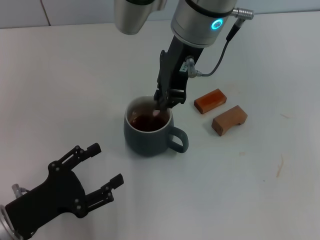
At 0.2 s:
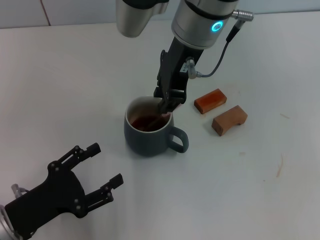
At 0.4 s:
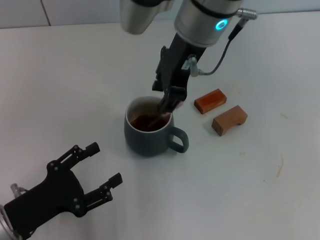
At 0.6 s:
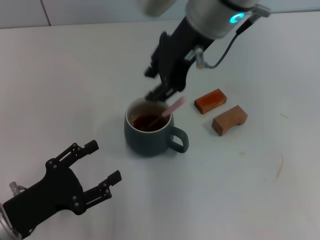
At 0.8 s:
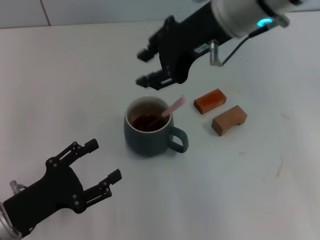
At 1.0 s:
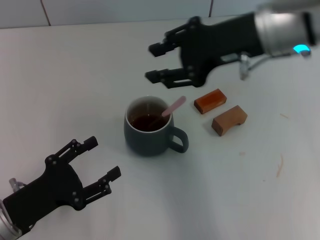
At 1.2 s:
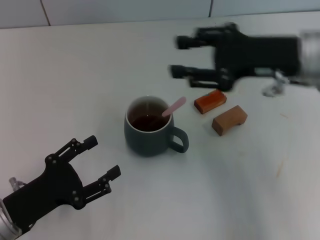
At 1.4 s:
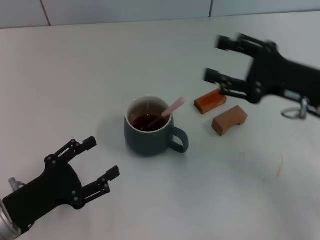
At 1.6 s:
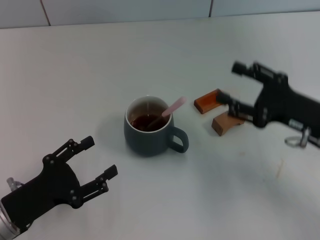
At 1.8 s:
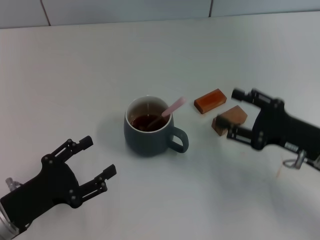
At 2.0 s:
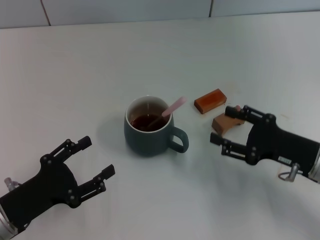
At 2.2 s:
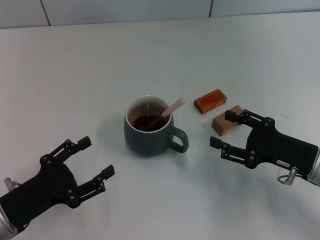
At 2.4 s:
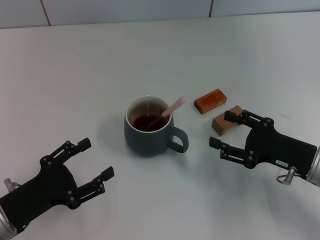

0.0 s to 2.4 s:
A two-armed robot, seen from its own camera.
Task of the whole recording: Move the grey cup to the center, lift the pink spoon, stir it three times in the cup, and put the spoon into the cup.
0.0 to 1.2 s: The right gripper is displaced to the right by approximately 20 cm, and opens up.
1.2 to 2.4 s: The right gripper goes some 15 cm downward and backward.

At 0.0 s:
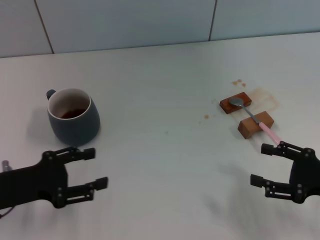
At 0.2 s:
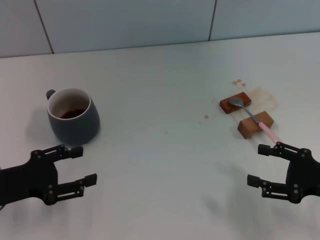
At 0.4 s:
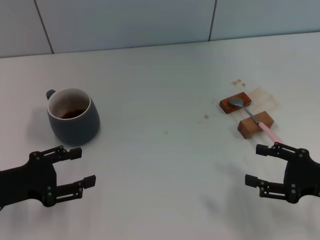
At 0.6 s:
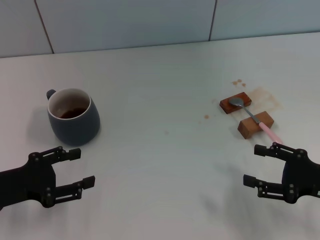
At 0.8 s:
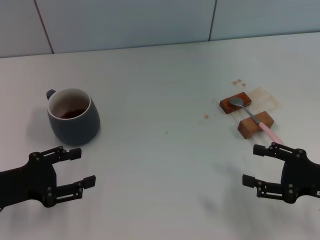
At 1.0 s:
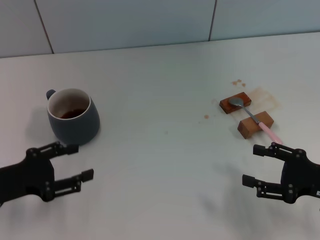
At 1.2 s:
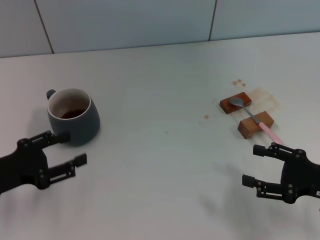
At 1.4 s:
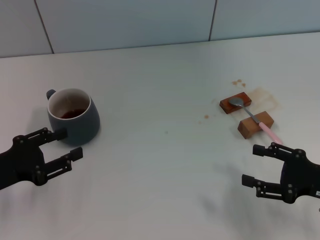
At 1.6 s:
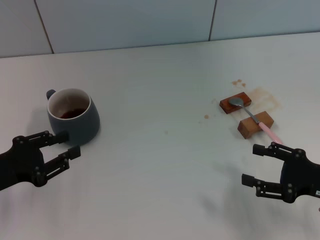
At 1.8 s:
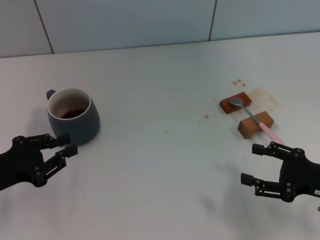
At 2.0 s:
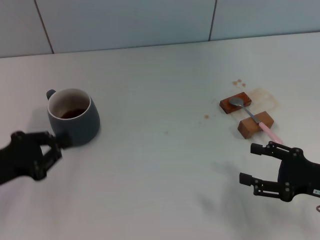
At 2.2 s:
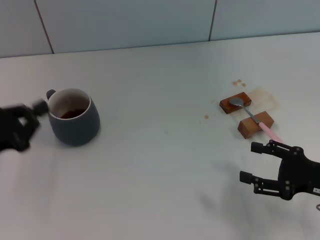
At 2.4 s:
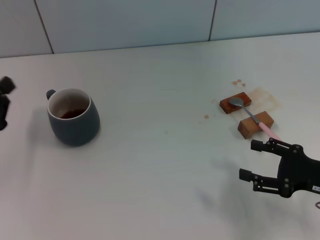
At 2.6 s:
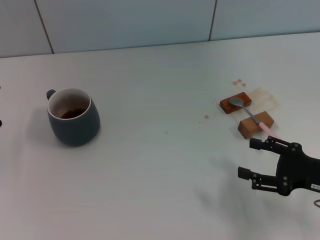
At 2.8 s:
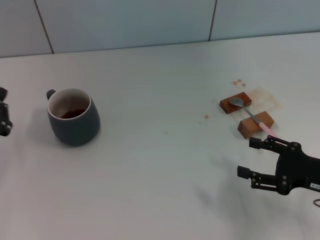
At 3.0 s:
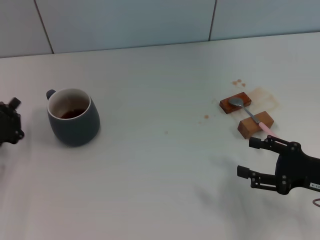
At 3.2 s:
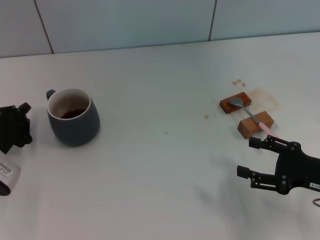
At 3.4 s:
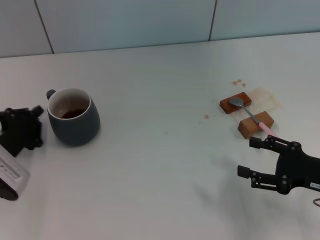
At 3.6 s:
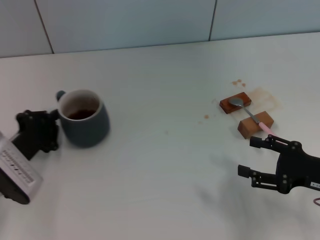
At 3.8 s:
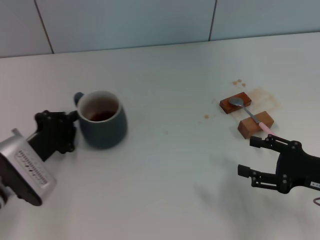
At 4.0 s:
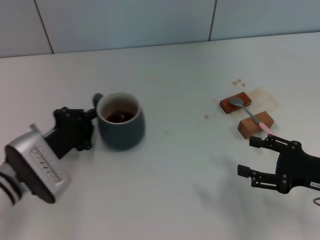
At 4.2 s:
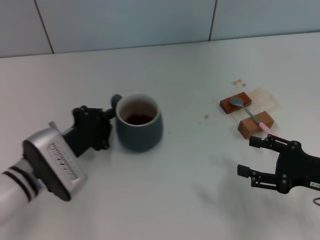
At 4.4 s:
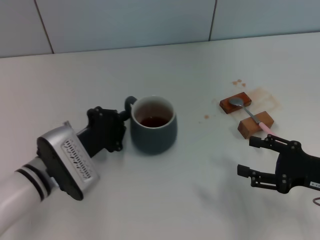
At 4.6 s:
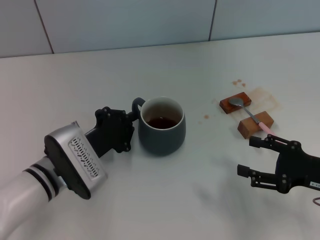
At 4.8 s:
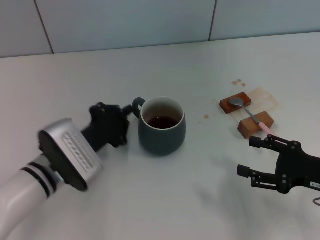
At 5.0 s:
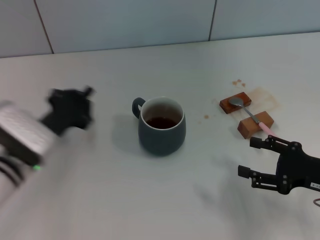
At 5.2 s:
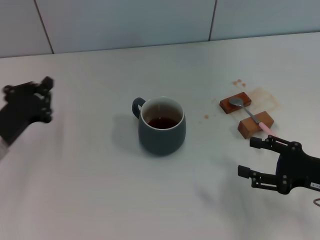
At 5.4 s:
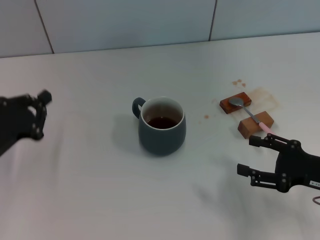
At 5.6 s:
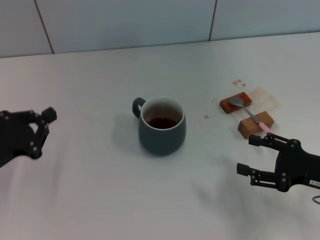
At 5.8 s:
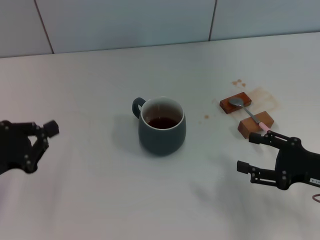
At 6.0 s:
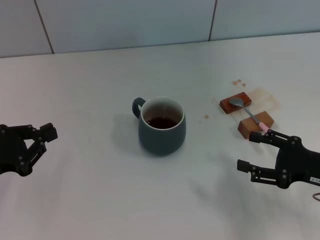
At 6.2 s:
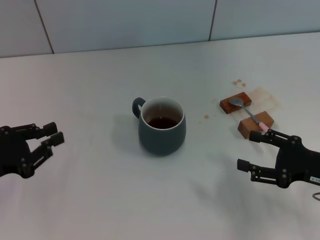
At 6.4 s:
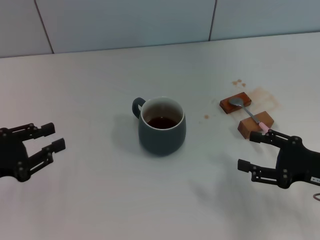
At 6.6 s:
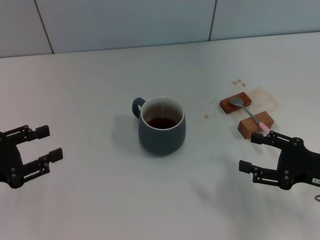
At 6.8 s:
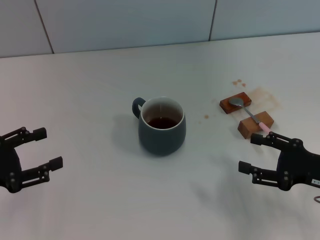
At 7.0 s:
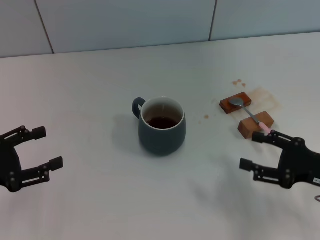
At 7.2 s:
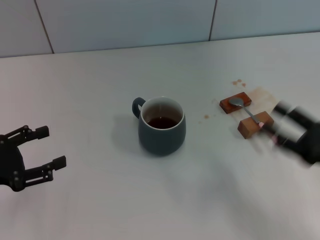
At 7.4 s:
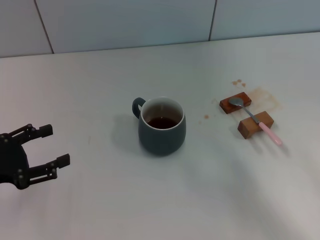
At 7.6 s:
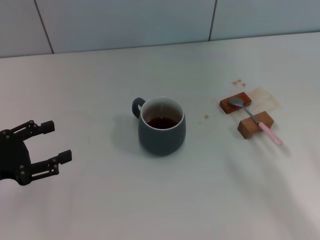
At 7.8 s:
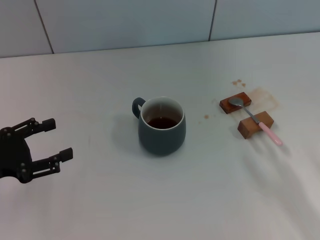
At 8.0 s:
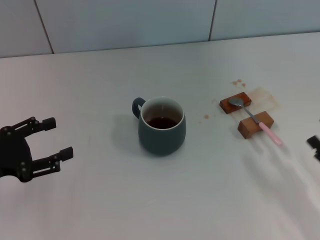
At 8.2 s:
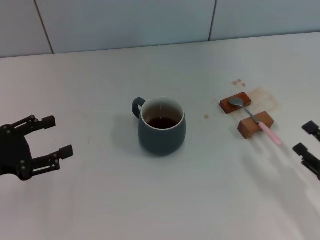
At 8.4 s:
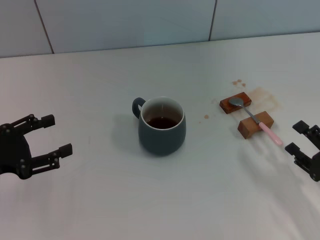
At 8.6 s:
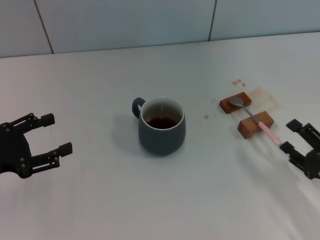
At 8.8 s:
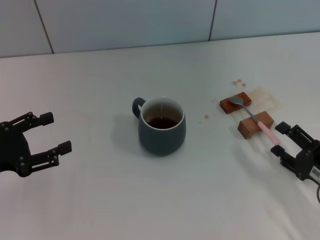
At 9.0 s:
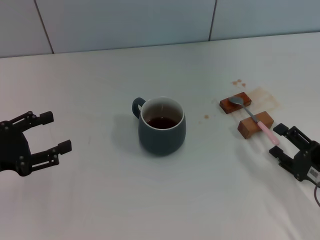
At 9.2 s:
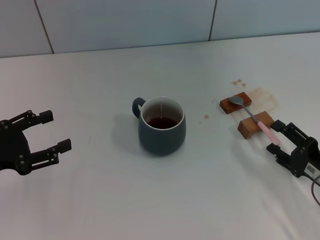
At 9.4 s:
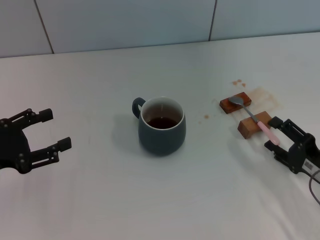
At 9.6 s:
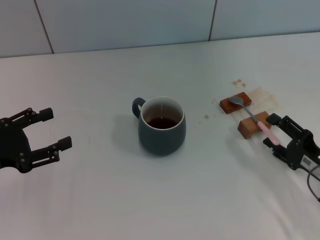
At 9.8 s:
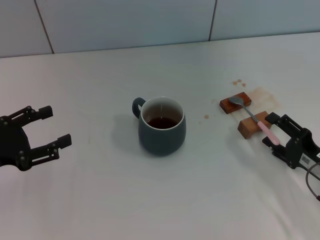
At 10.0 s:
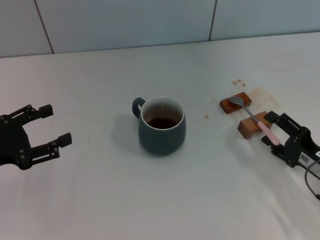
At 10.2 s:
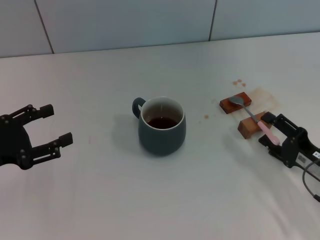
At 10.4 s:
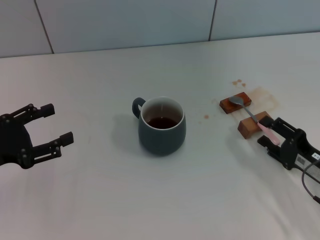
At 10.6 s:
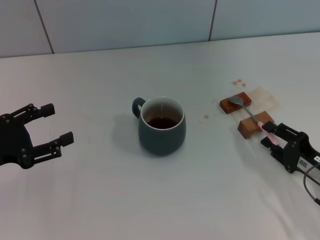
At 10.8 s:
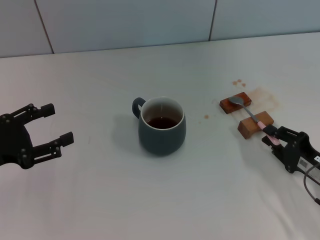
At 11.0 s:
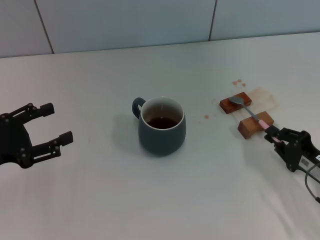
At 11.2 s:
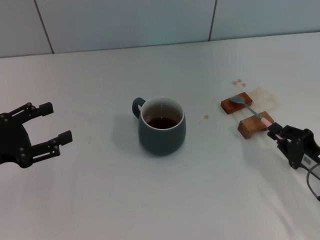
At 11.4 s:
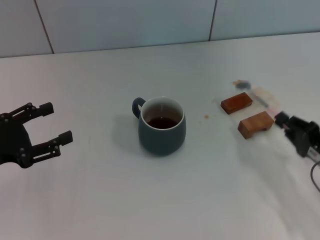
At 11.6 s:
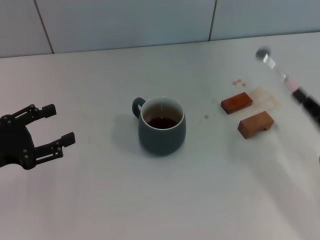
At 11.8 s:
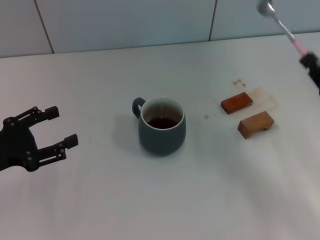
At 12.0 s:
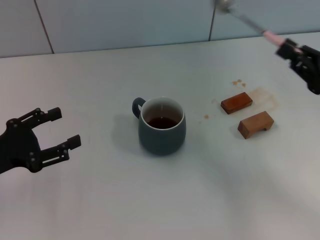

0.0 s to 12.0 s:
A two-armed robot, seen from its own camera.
Task of the whole recording: Move the grey cup to the center, lift the pink spoon, stir it three times in the cup, and put the spoon into the cup.
Step, 0.0 to 4.8 s: Move the cup with coffee to the center of view with the left gripper.
Step, 5.0 to 11.6 s: Pick up the spoon with the right gripper.
0.0 to 1.6 s: The grippers make only small movements.
1.6 to 3.0 s: The left gripper changes place by some 5 cm, and closes up.
3.0 to 4.4 s: The left gripper is displaced to the right by some 15 cm.
4.4 to 6.0 s: The left gripper travels to the left by approximately 15 cm.
6.0 to 7.6 s: The right gripper shifts roughly 5 cm backward, while the left gripper opens its fingers.
7.6 to 9.0 s: The right gripper shifts by approximately 5 cm.
9.0 to 10.4 s: The grippers stay close to where they were, moving slightly.
10.4 to 12.0 s: The right gripper heads upward and forward, covering about 15 cm, and closes.

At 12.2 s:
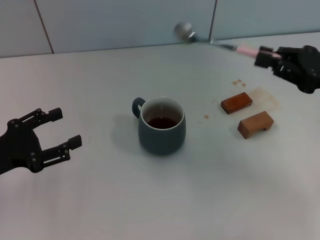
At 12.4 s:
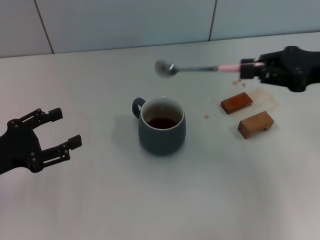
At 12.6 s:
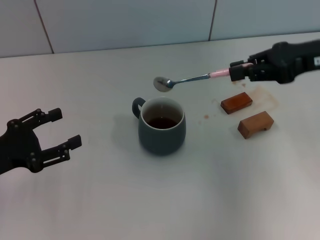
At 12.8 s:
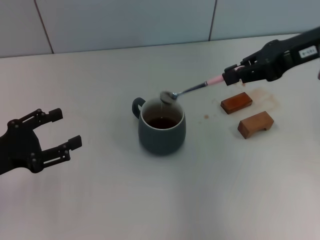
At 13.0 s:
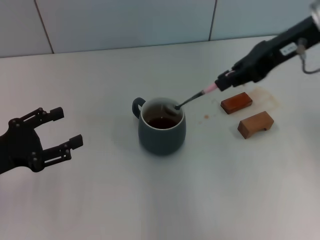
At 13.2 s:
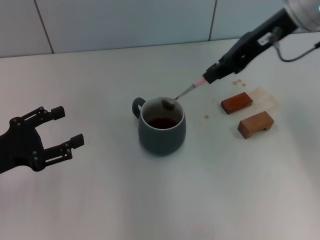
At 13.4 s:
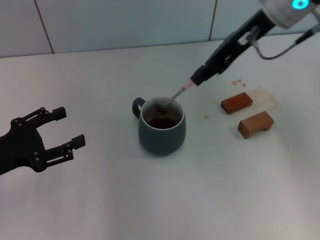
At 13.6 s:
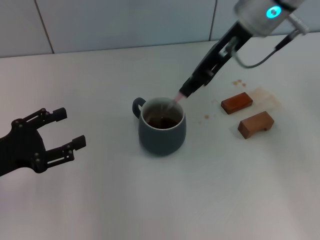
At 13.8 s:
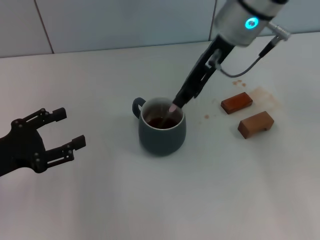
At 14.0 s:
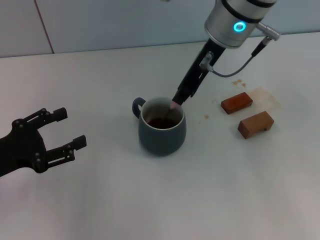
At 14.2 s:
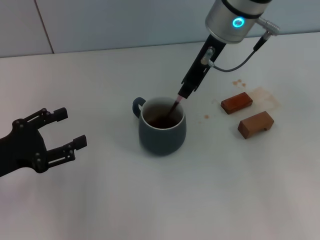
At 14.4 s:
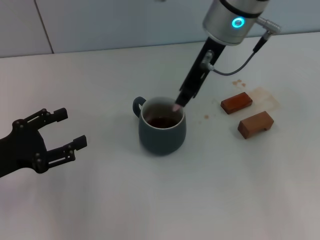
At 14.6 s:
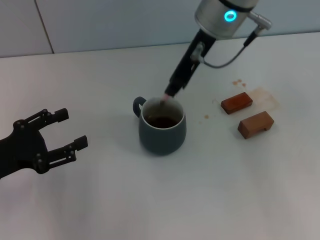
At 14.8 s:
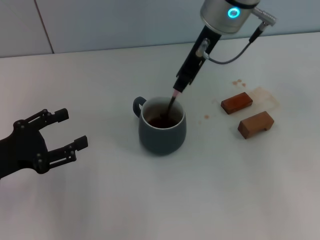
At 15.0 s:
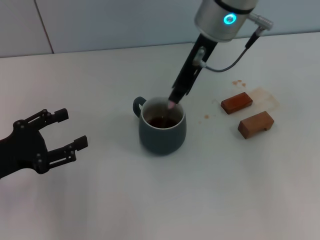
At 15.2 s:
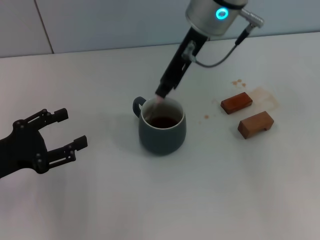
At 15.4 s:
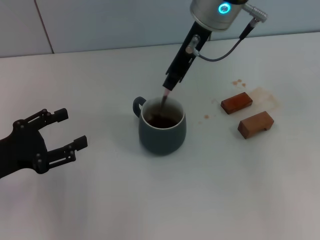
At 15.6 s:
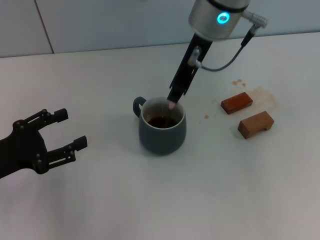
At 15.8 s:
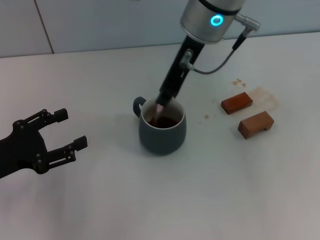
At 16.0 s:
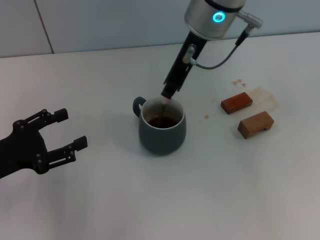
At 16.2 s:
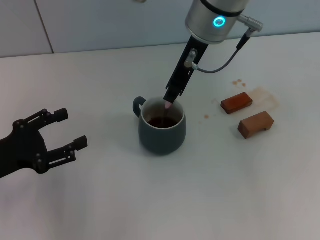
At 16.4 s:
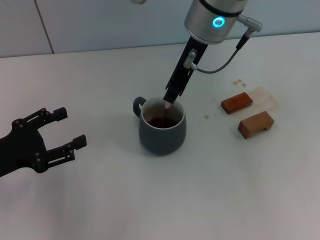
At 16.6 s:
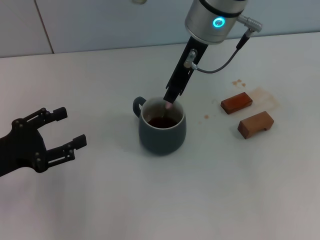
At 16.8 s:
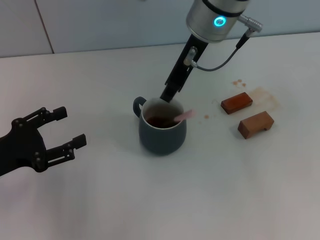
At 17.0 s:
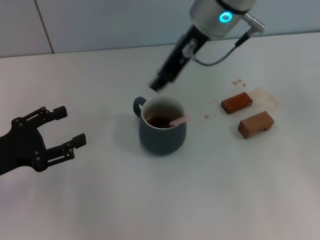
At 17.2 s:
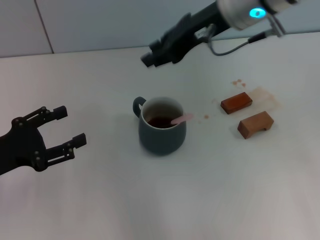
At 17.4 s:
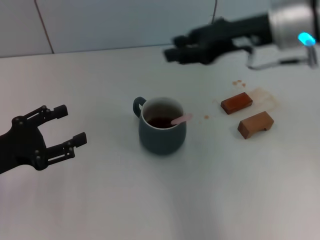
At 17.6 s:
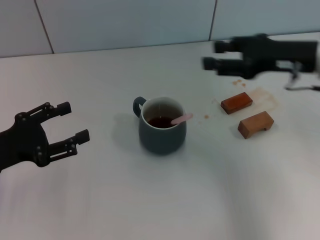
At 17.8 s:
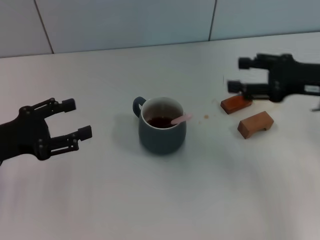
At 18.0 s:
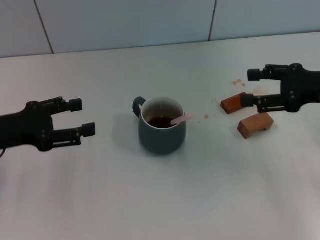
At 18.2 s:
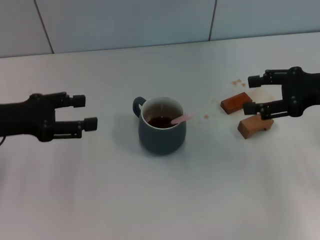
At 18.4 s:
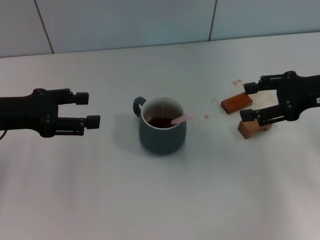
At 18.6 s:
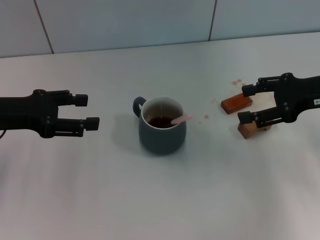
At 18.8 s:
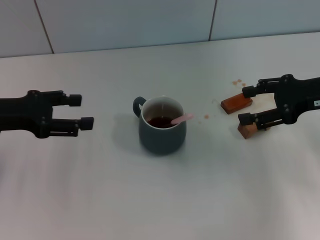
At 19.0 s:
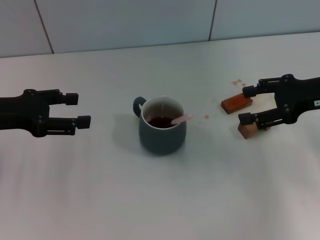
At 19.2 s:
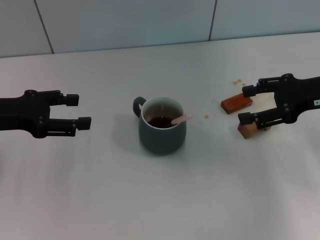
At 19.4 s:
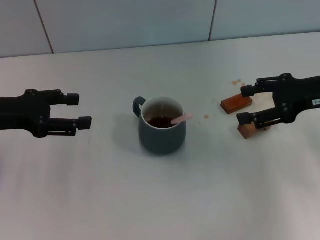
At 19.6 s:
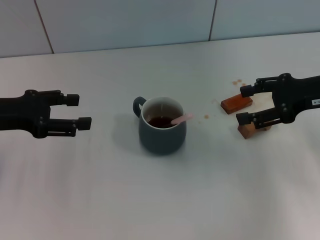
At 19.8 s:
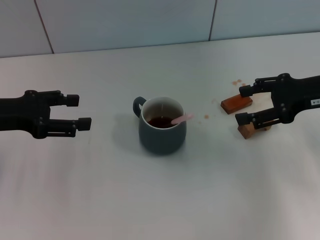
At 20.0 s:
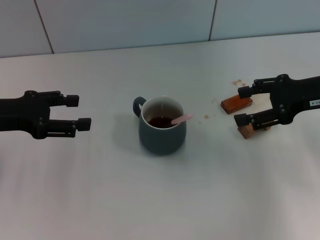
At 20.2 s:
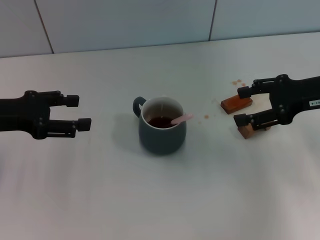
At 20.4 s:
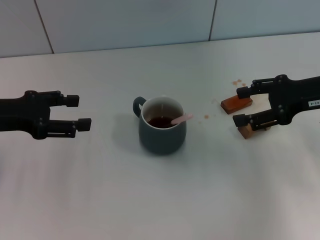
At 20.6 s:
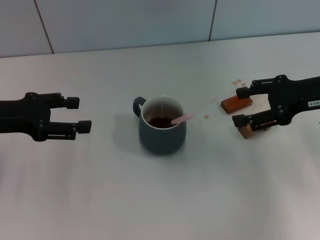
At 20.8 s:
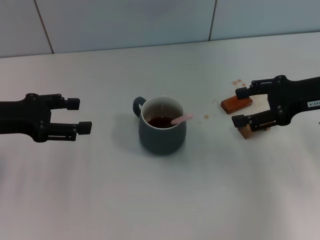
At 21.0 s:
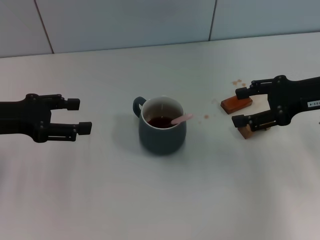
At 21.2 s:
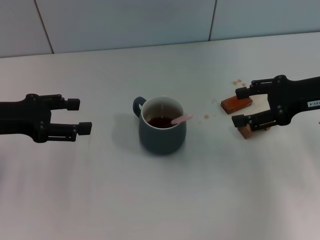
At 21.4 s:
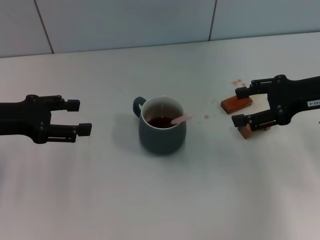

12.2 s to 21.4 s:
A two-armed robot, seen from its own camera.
Task of the whole recording: Move the grey cup to the center, lift the pink spoon, stir it three times in the cup, and put the spoon into the cup.
Step, 12.2 to 16.8 s: Stir the coffee in the cup with the right gripper.
12.2 to 13.8 s: The right gripper travels to the left, forward and upward by some 25 cm.
13.8 to 16.8 s: The grippers move only a little.
16.8 to 18.4 s: The right gripper travels to the right by approximately 25 cm, and opens its fingers. Meanwhile the left gripper is displaced forward and upward by some 10 cm.
18.4 to 21.4 s: Both grippers stay put.
